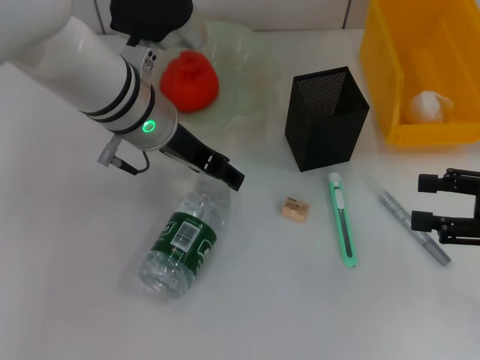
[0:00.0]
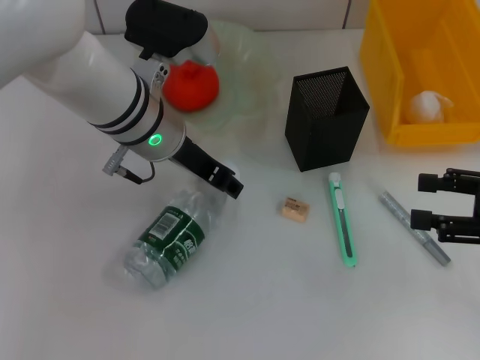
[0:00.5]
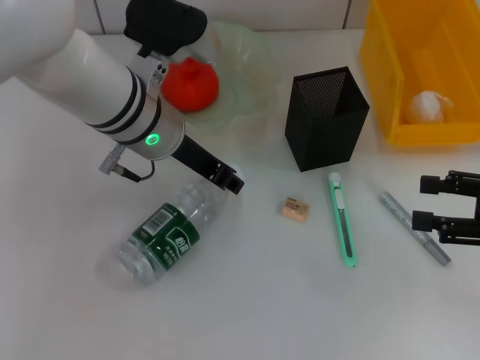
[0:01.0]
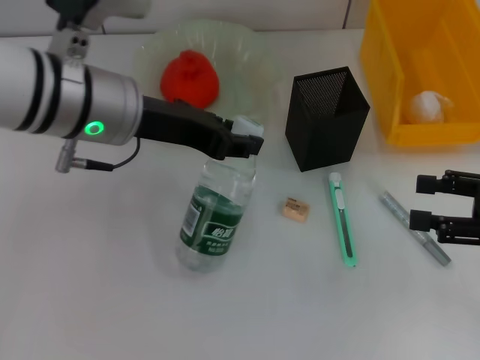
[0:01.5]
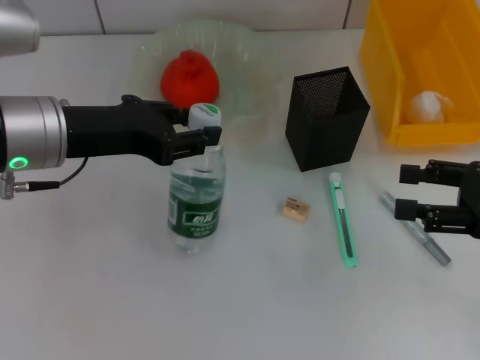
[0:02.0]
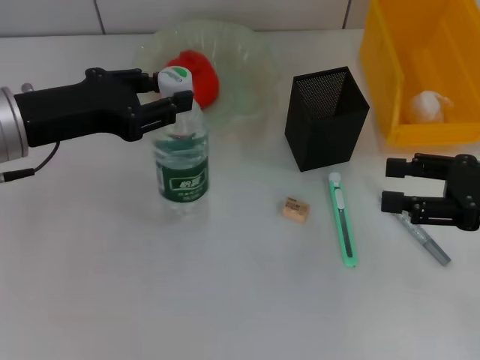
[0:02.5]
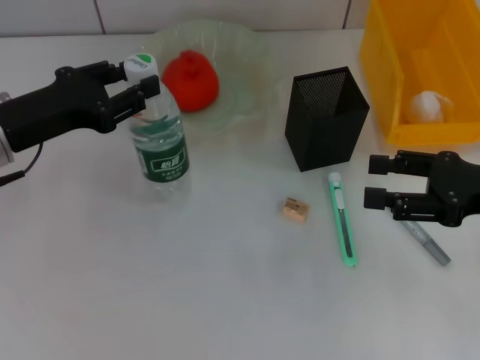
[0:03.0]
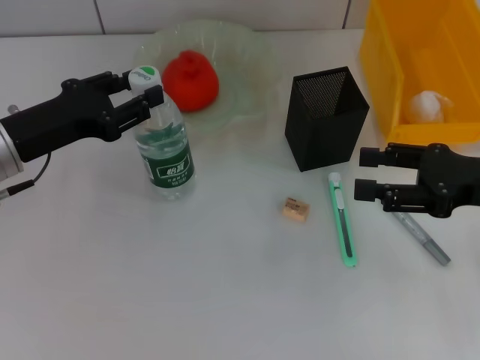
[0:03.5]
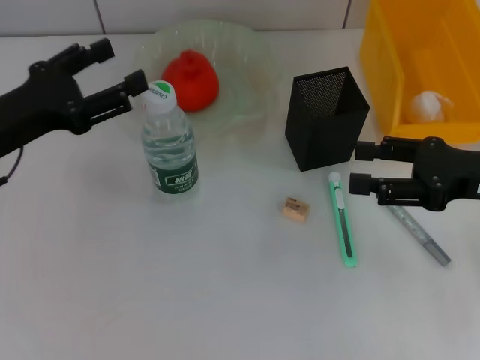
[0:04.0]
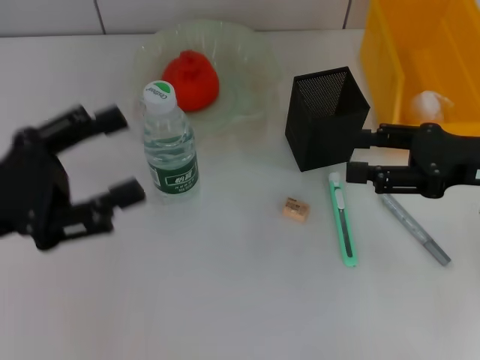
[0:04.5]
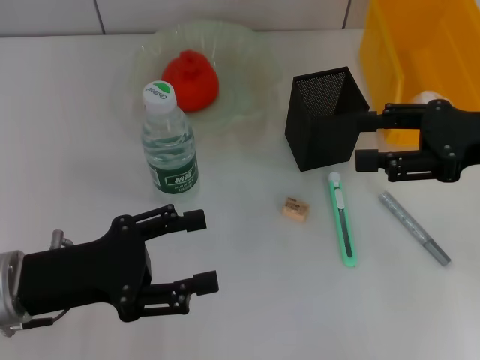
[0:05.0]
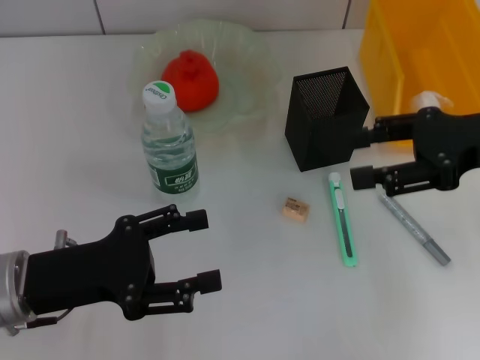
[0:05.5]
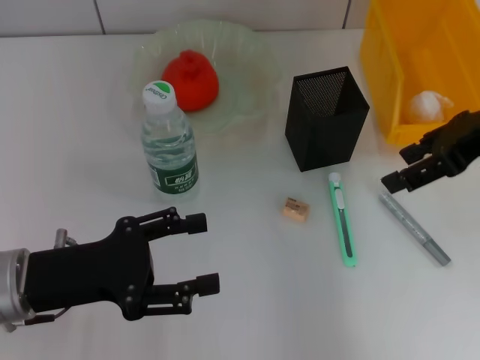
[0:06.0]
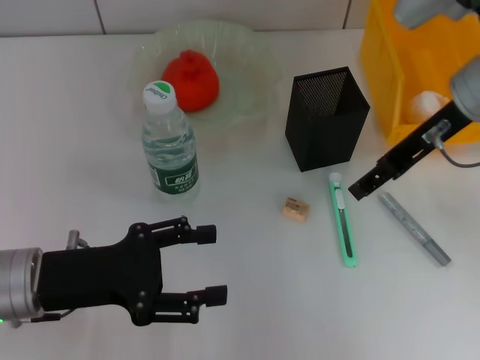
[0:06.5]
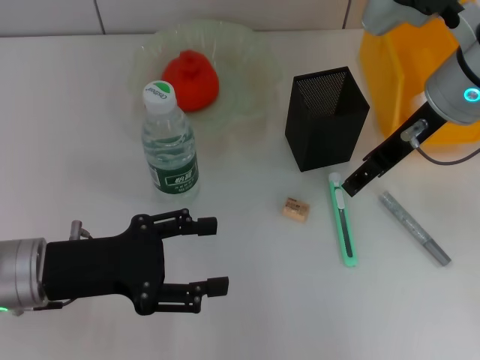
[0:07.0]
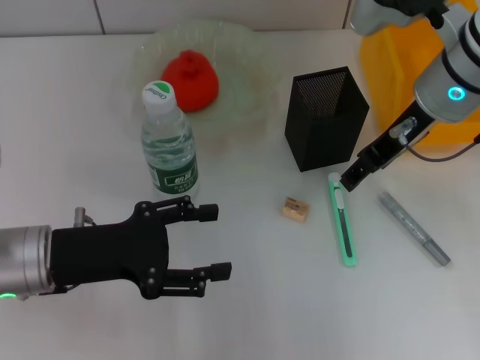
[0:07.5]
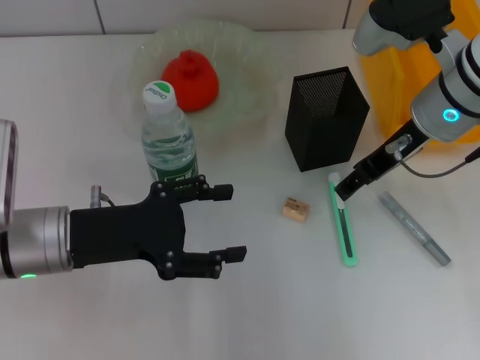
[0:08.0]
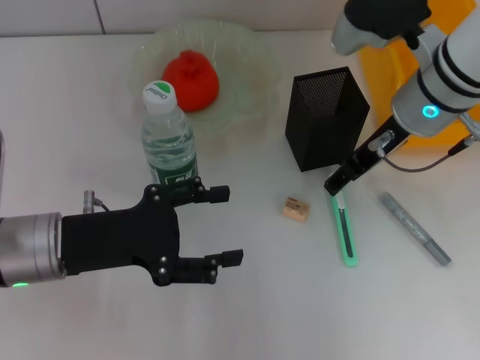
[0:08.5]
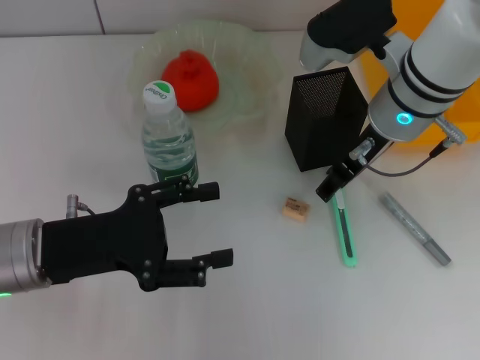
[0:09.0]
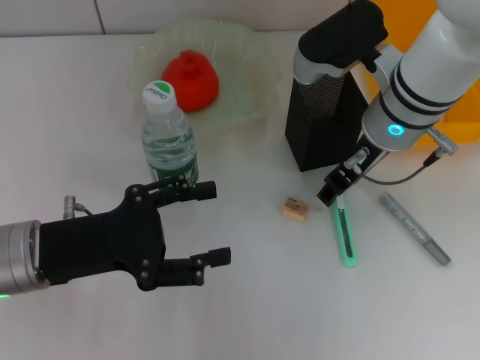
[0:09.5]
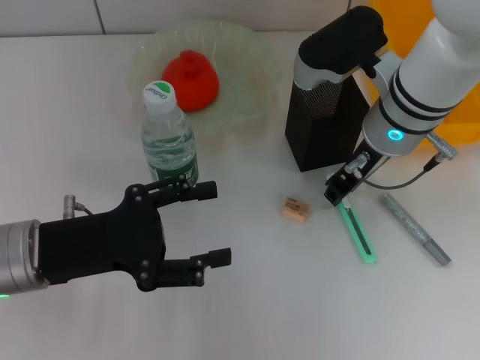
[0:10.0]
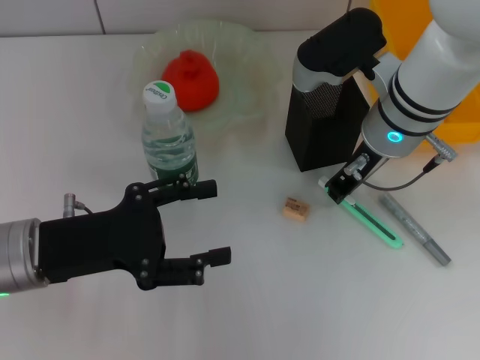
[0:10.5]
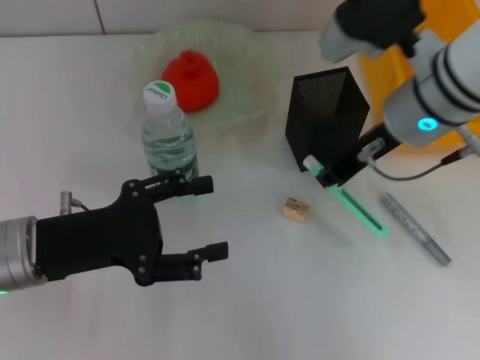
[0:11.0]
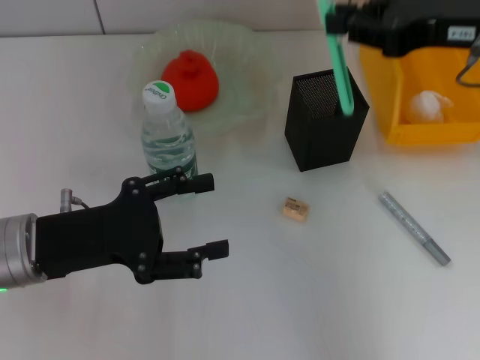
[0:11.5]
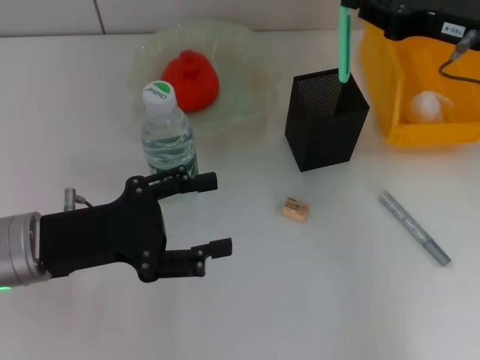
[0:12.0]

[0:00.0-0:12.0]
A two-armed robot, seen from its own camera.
Step, 0:01.0 to 0:03.5: Place the water bottle on the table with the left hand.
Step, 0:04.0 to 0:10.0: Grab the blue utility knife with the right hand.
0:00.0 to 0:02.0: The left gripper travels to the left and backward by some 10 cm, and closes its fingers.
0:02.0 to 0:04.0: The left gripper goes roughly 10 cm to the left, and opens its fingers.
0:04.0 to 0:06.0: The right gripper travels upward and forward by some 10 cm; the left gripper heads backward and downward, covering some 10 cm.
0:06.0 to 0:08.0: The right gripper goes about 10 cm to the left and downward.
0:08.0 to 0:10.0: The right gripper moves some 5 cm, and closes up.
0:10.0 to 0:12.0: The right gripper moves to the right, some 10 cm.

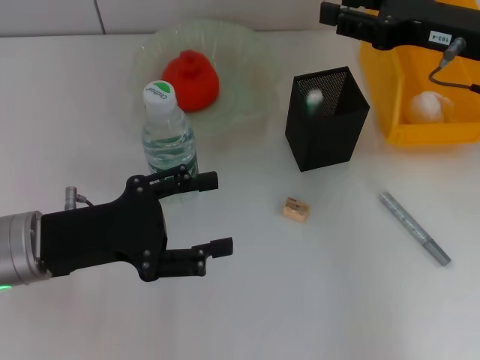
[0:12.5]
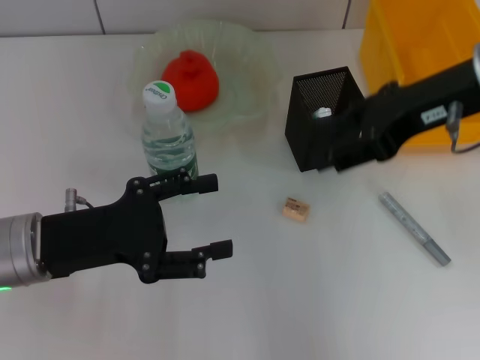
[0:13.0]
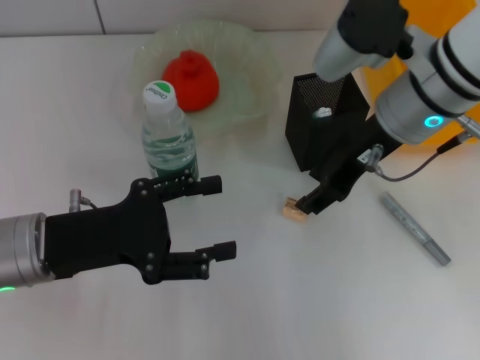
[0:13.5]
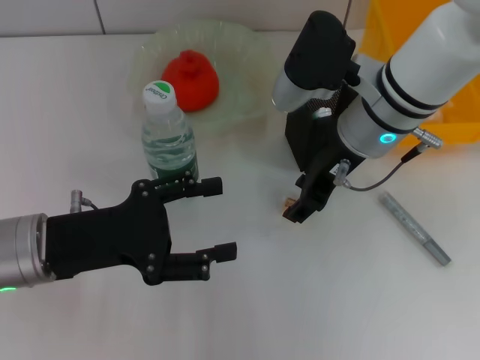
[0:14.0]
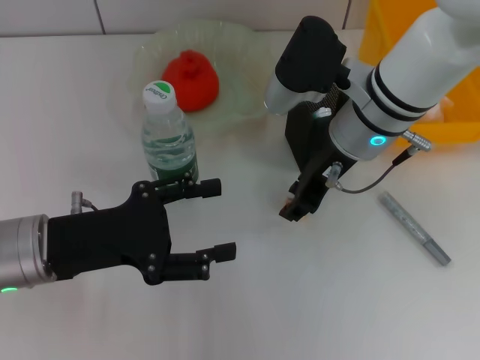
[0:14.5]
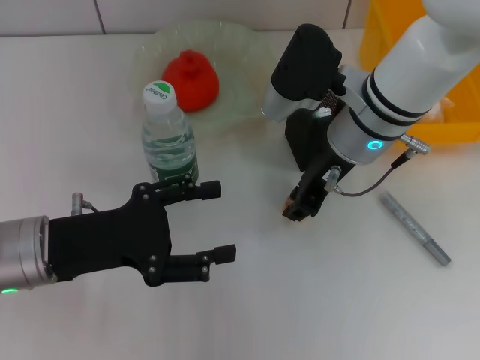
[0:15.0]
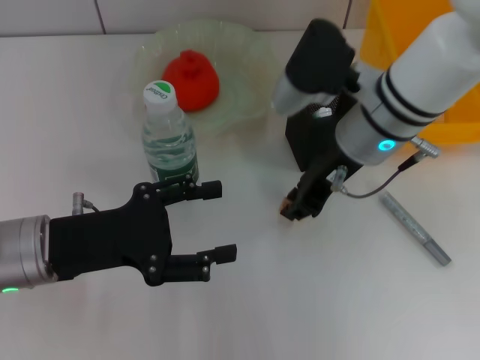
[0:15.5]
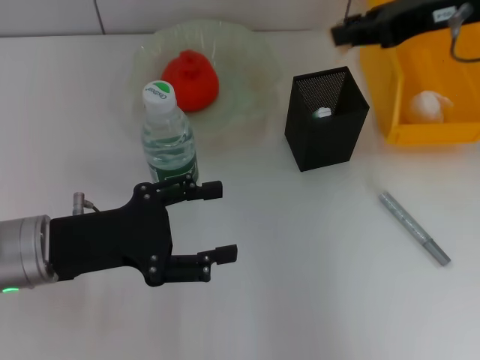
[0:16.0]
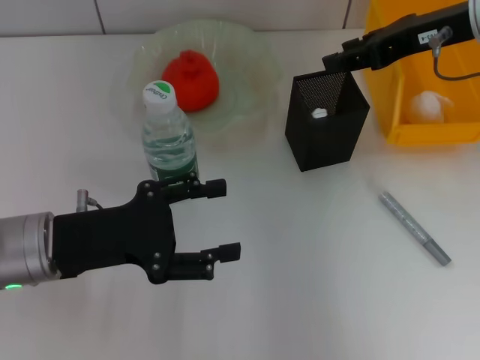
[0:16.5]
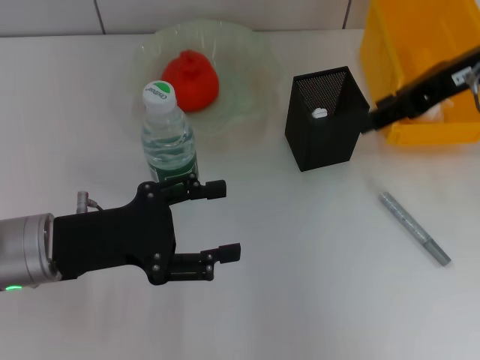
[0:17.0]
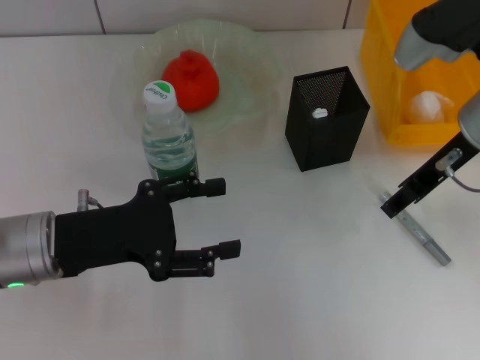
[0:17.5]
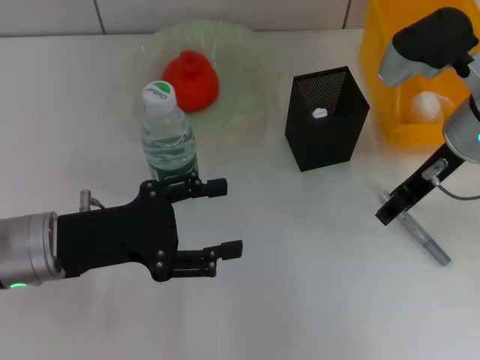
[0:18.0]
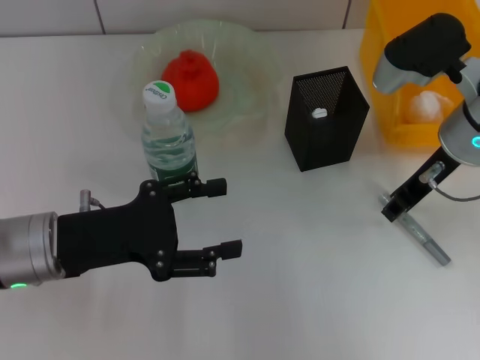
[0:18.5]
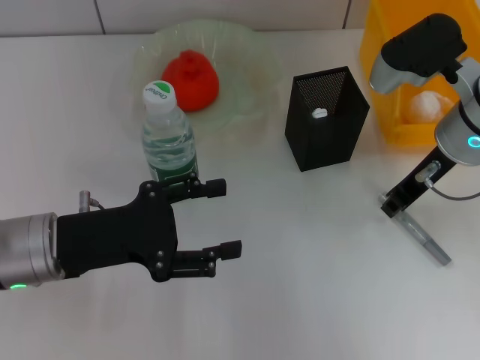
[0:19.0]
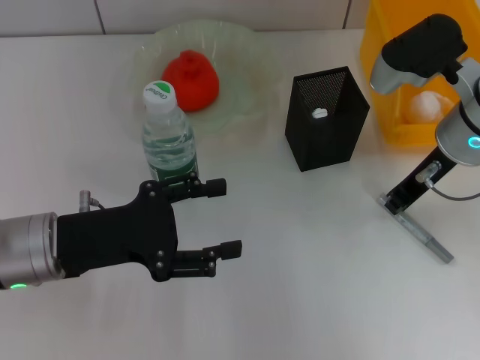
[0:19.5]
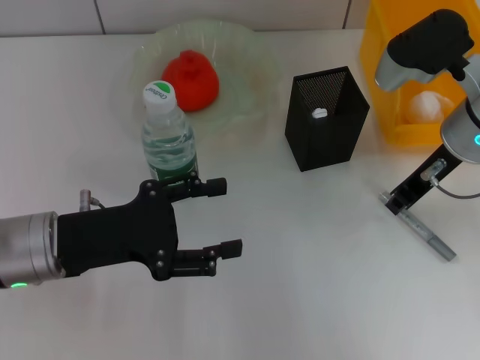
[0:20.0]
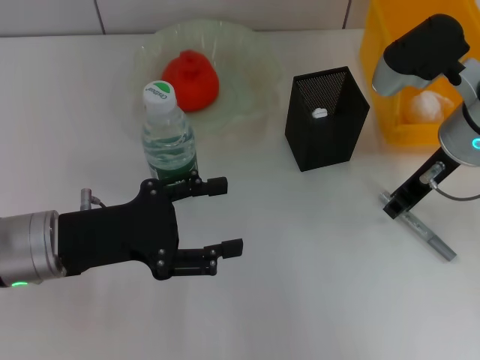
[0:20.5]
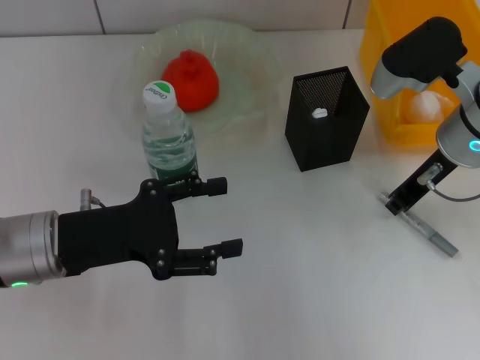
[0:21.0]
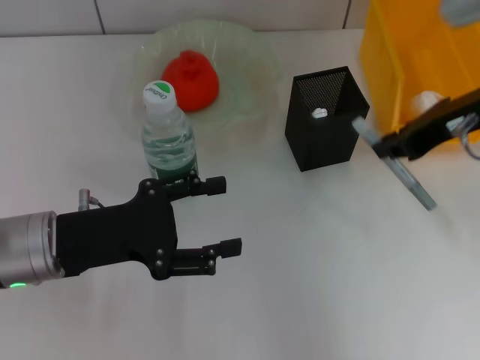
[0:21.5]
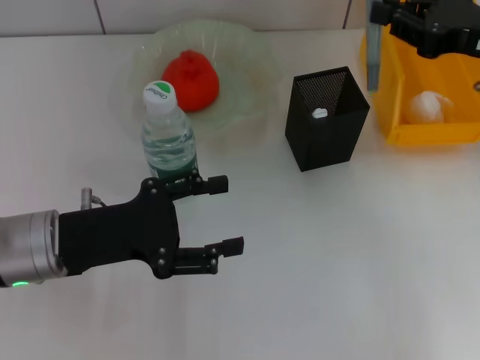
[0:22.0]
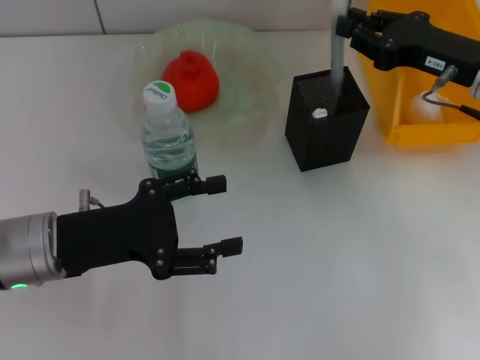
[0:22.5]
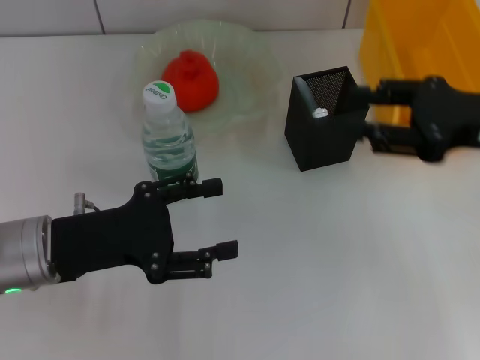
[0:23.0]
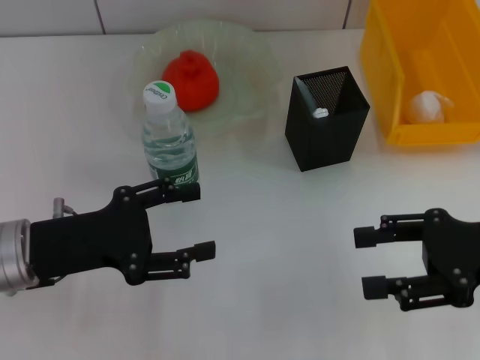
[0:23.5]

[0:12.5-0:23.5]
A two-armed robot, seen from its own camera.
Step, 0:13.0 to 0:15.0: Grab the eraser with the right hand.
Step, 0:15.5 to 0:16.0: Put the eraser into the pen holder with the right hand.
Step, 0:16.5 to 0:20.5: Grab the gray glue with the right hand.
Step, 0:21.0 to 0:22.5: Place the gray glue into the pen holder with the right hand.
0:12.5 to 0:14.5: The right gripper heads to the left, covering roughly 15 cm.
0:14.5 to 0:16.0: The right gripper goes some 15 cm to the right and upward, and closes.
0:16.0 to 0:18.0: The right gripper is displaced downward by about 10 cm, and opens.
0:18.0 to 0:20.0: The right gripper closes up.
0:20.0 to 0:21.5: The right gripper moves upward, about 5 cm.
0:21.5 to 0:23.5: The right gripper travels backward, downward and to the right by roughly 15 cm, and opens.

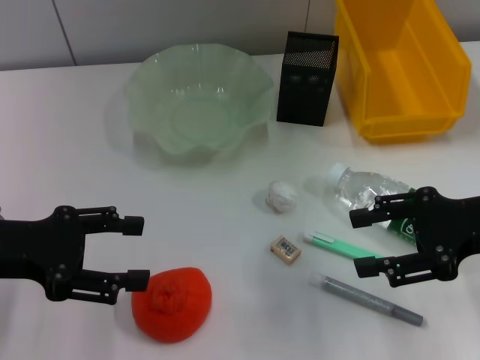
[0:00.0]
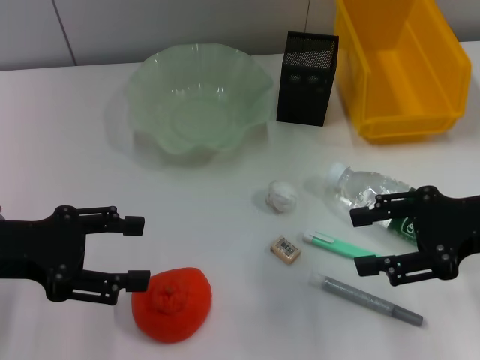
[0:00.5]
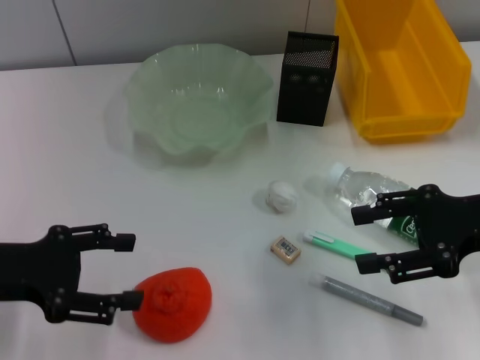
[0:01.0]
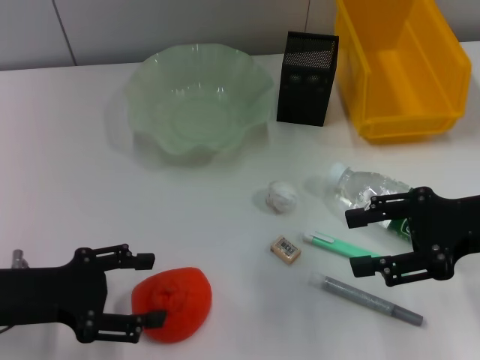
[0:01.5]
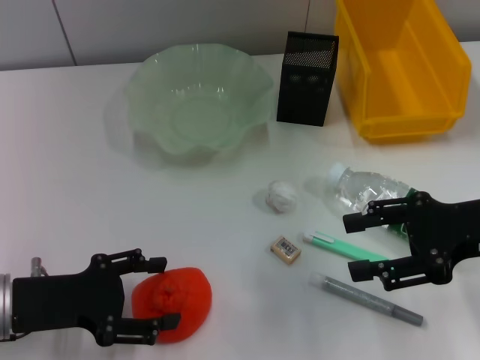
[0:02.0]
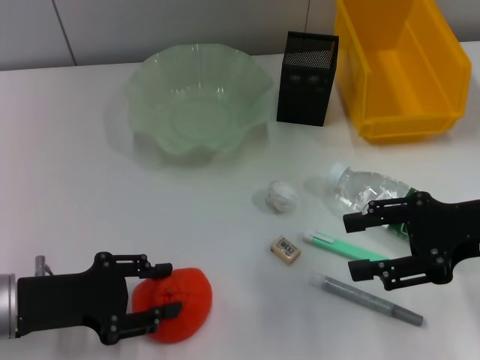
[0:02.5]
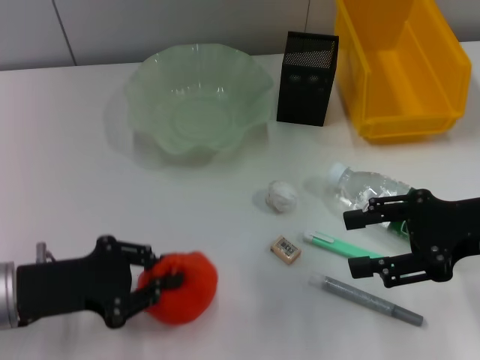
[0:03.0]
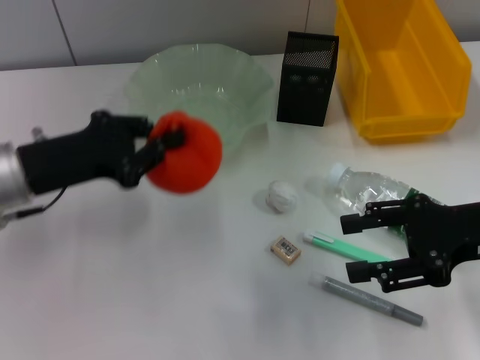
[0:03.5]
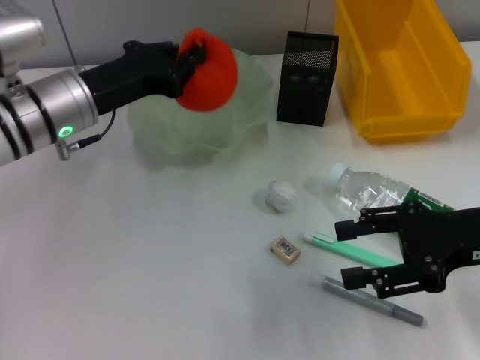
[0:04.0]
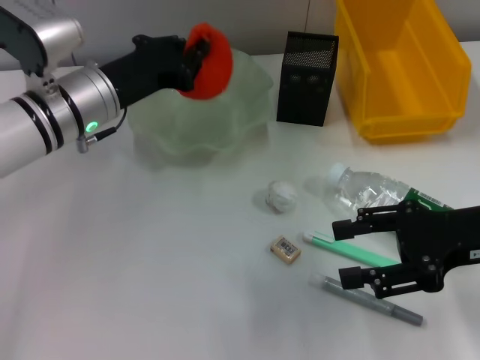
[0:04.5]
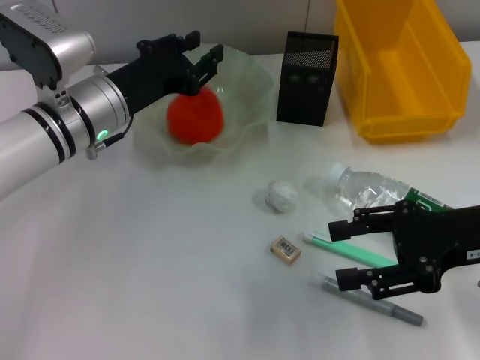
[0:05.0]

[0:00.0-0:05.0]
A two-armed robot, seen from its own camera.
Step, 0:00.0 to 0:02.5: Grab the orange with the left hand.
0:00.0 to 0:02.5: The left gripper travels downward by some 10 cm.
0:02.5 to 0:05.0: The left gripper is displaced forward and to the right by roughly 20 cm, and closes its fingers.
